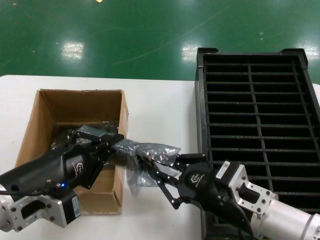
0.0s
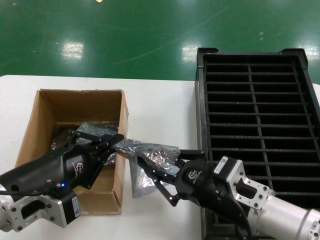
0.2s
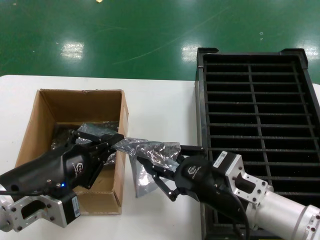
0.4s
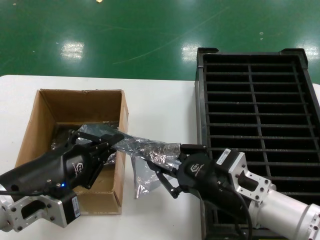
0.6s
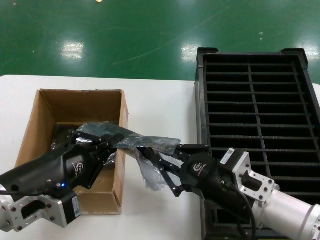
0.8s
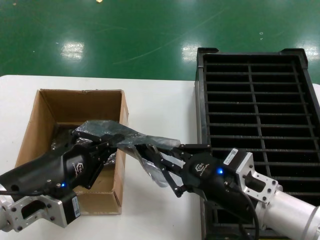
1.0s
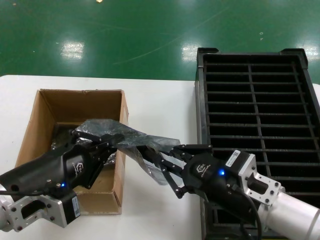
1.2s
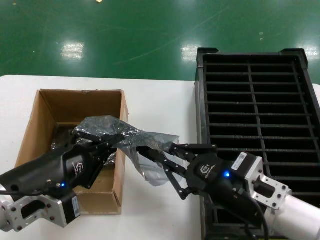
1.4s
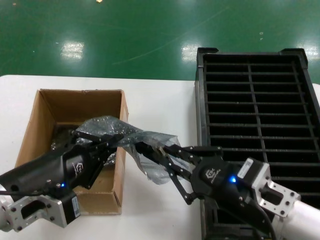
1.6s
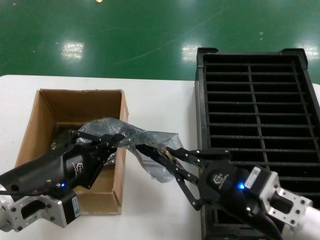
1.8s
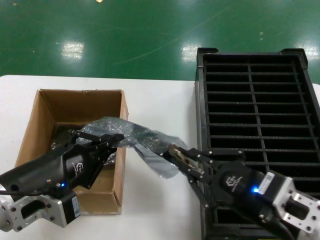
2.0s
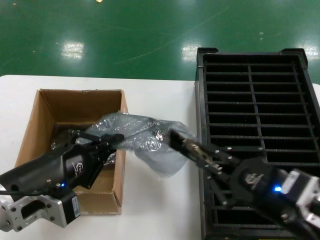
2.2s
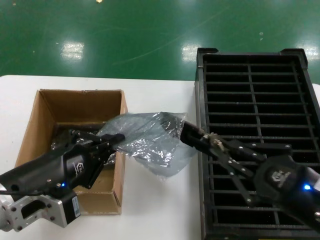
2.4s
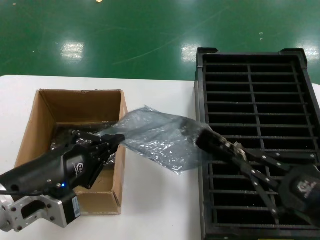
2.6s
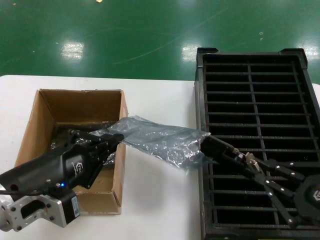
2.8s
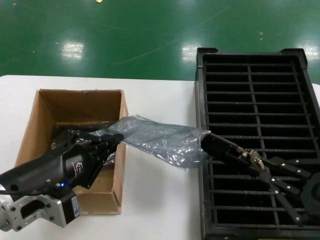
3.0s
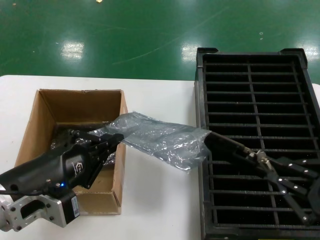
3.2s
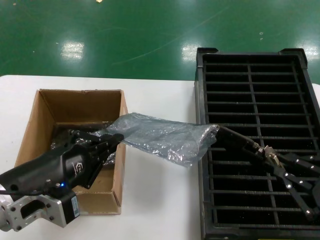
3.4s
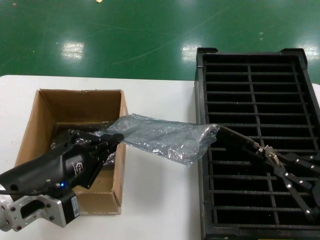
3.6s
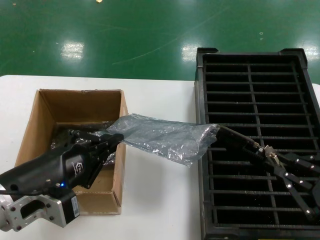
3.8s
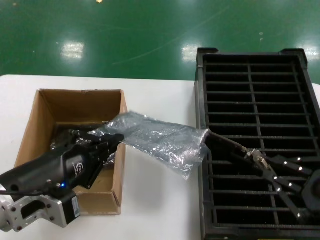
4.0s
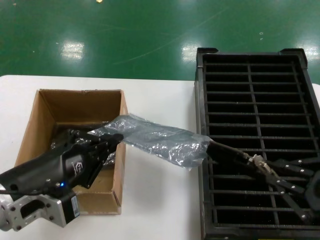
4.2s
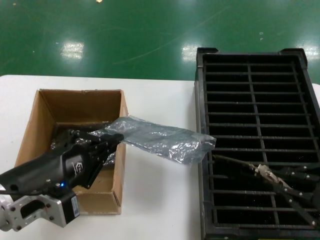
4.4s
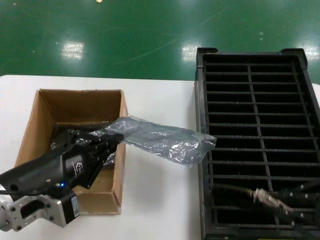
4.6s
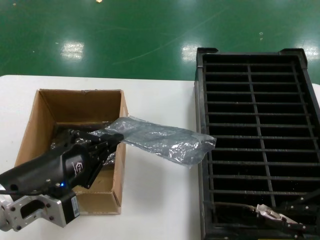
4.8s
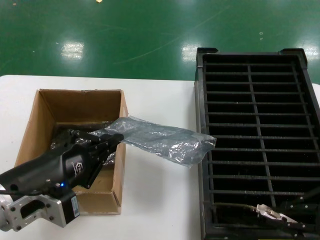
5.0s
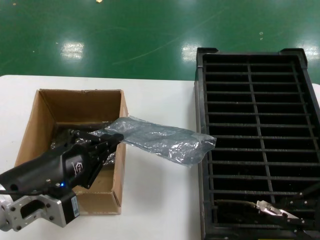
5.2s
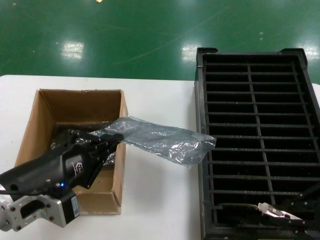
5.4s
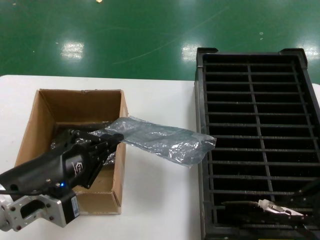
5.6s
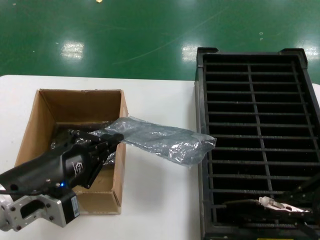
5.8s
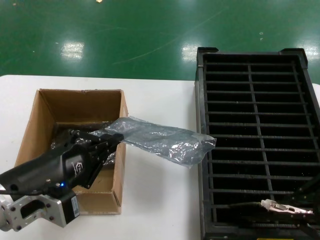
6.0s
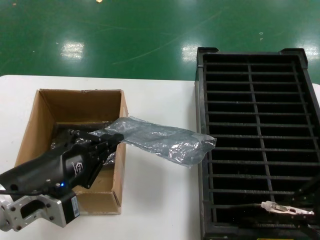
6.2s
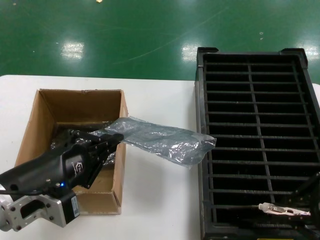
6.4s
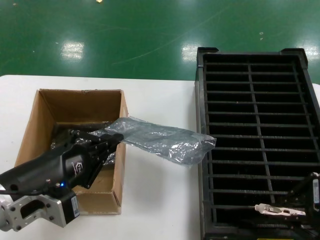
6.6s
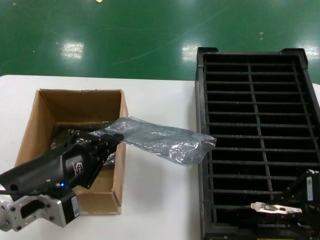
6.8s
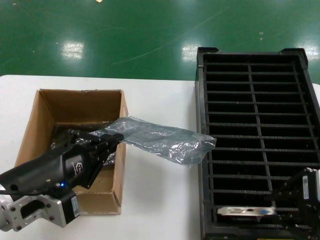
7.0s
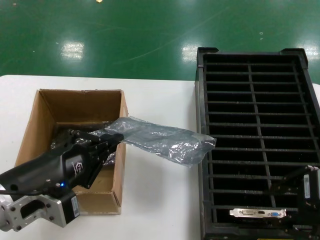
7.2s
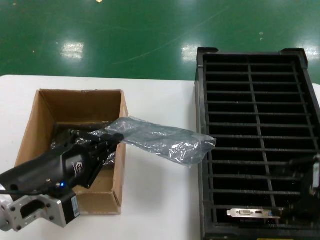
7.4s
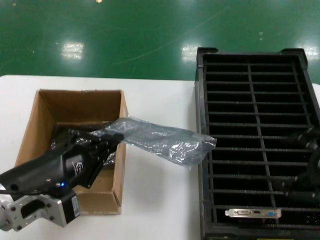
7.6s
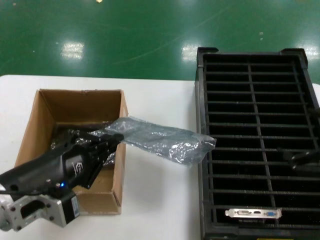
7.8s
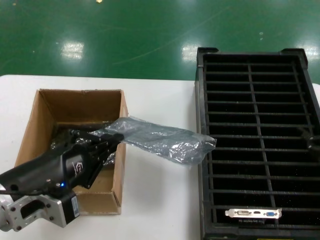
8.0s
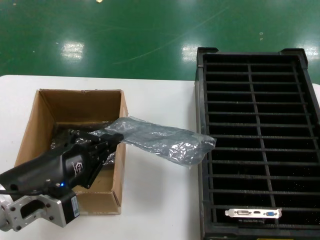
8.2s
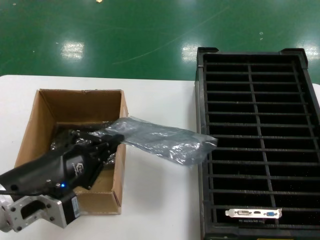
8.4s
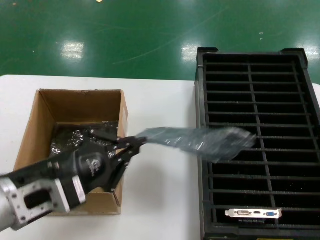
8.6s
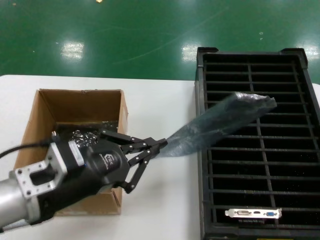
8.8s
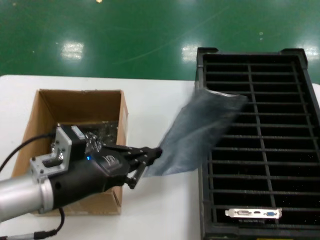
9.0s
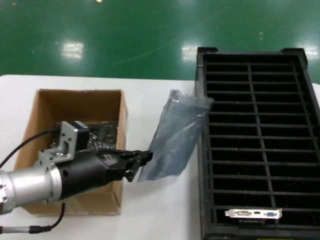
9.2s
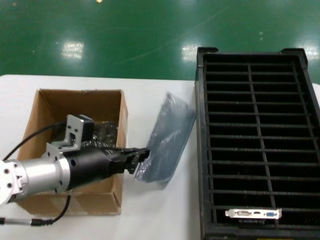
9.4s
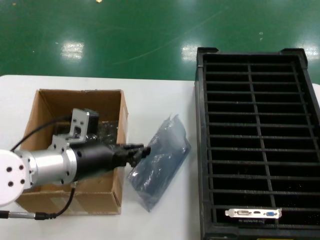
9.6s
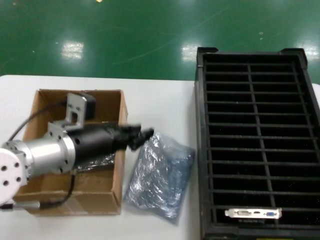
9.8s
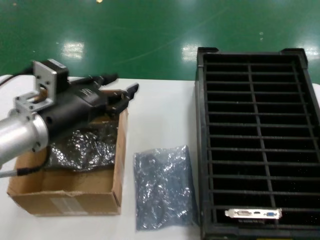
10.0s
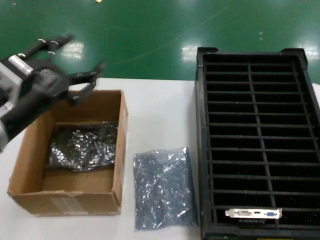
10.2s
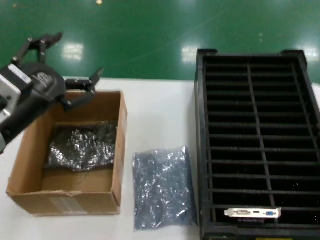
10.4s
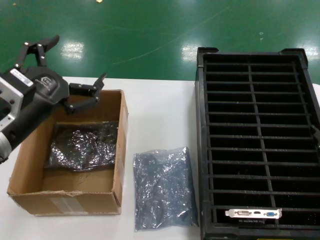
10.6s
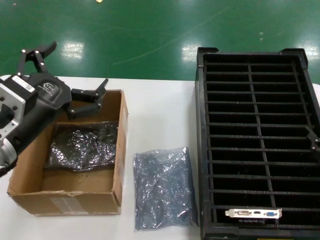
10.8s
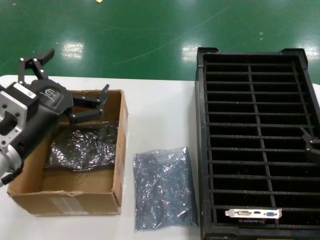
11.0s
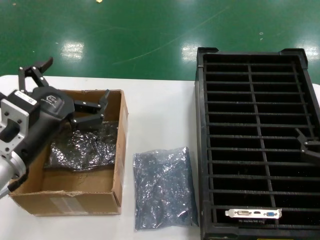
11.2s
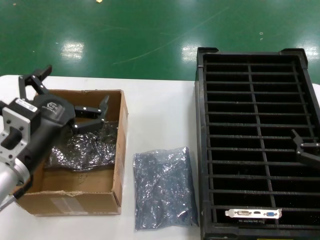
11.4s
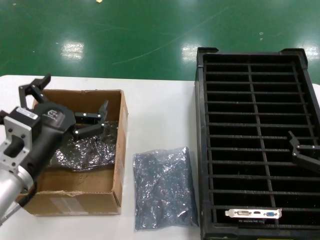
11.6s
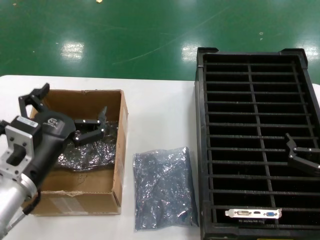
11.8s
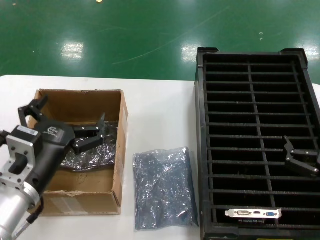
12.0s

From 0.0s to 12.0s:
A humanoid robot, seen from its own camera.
Task of the whole recording: take out graphics card from box remove packaging put into black container.
Step, from 0.0s to 4.4s: Take out the hard disk of the bag.
Step, from 4.6s to 7.4s: Place the hard disk in the hard disk enclosure.
Step, from 7.6s to 11.2s: Place the down the bag.
From 0.0s to 1.6s: There are only small adjustments of the hands.
From 1.6s to 3.0s: The right hand moves to the right, backward and upward, some 15 cm.
From 3.0s to 4.4s: The hands make only small movements.
From 4.4s to 6.0s: The right hand moves roughly 5 cm.
From 6.0s to 7.6s: The hands stay close to where they were, moving slightly.
From 7.6s to 9.0s: The right hand moves downward and to the right, roughly 10 cm, while the left hand travels forward by roughly 5 cm.
From 9.0s to 10.4s: The left hand is displaced upward by approximately 5 cm.
From 10.4s to 12.0s: The right hand is displaced downward and to the left by approximately 10 cm, while the left hand heads downward, covering approximately 10 cm.

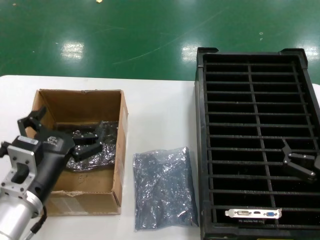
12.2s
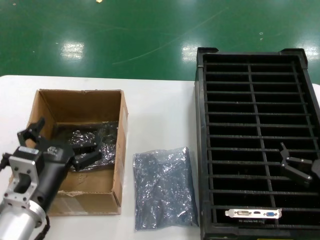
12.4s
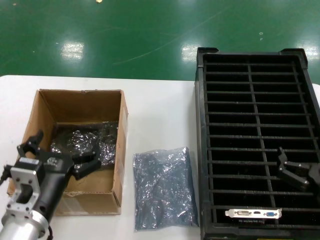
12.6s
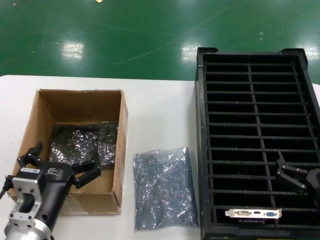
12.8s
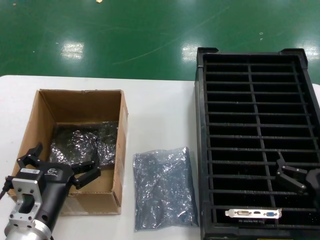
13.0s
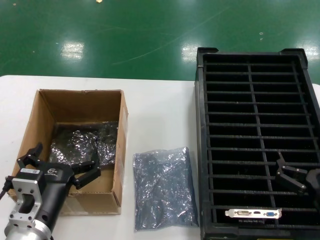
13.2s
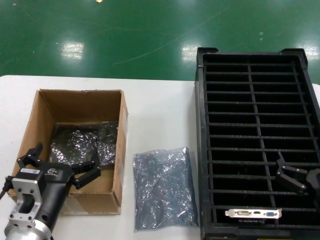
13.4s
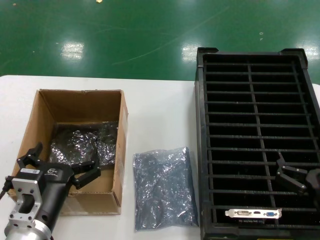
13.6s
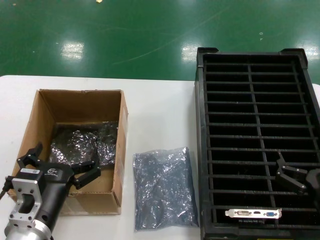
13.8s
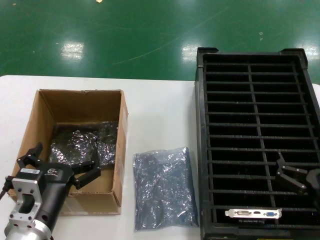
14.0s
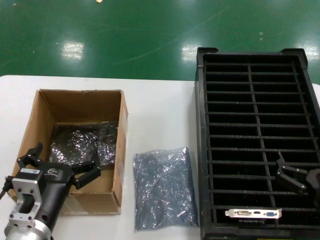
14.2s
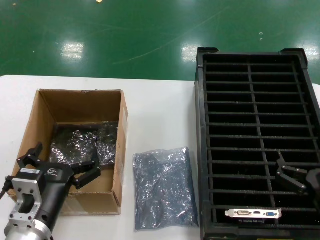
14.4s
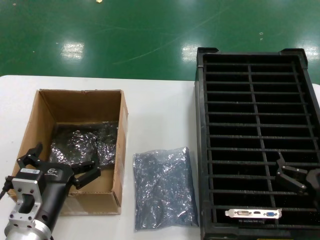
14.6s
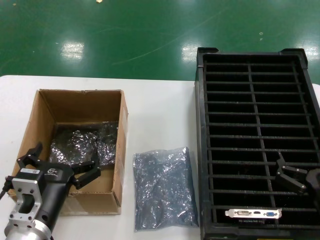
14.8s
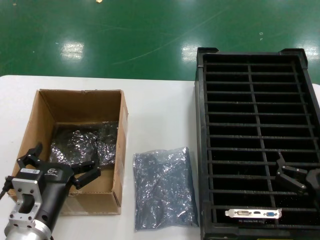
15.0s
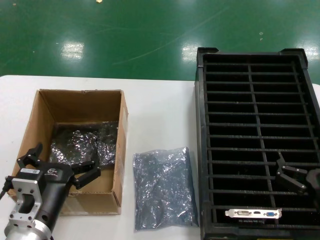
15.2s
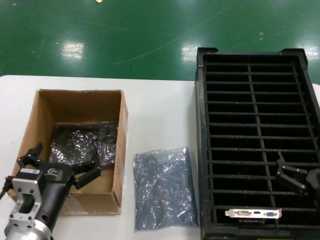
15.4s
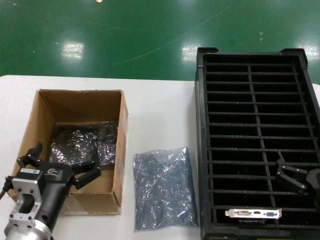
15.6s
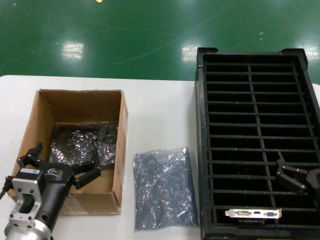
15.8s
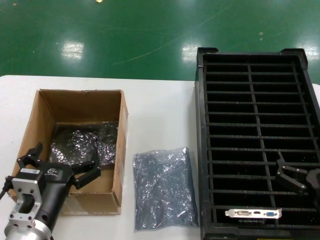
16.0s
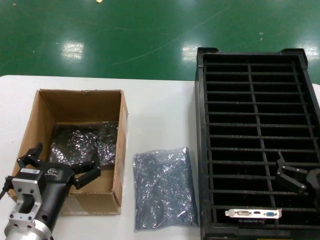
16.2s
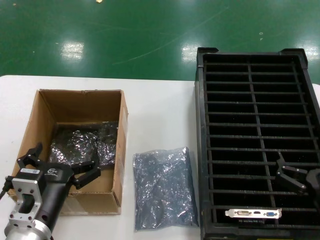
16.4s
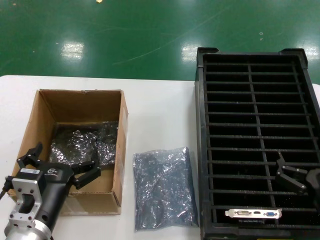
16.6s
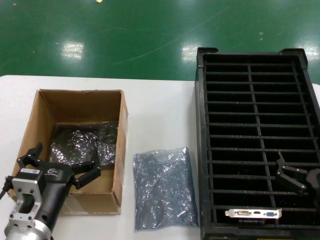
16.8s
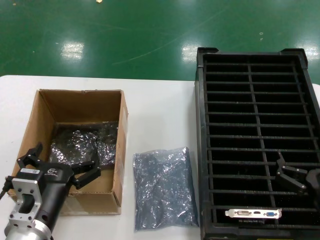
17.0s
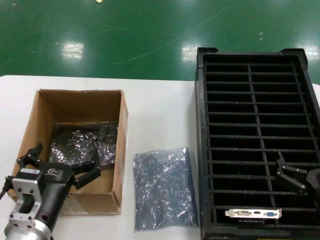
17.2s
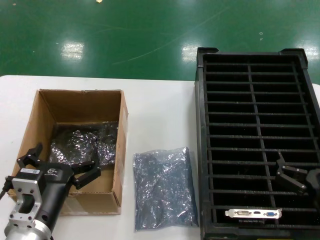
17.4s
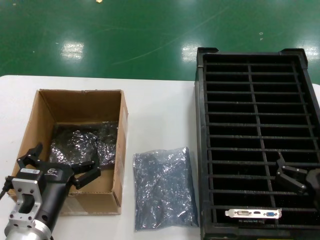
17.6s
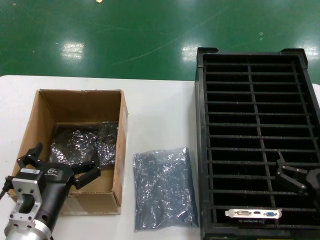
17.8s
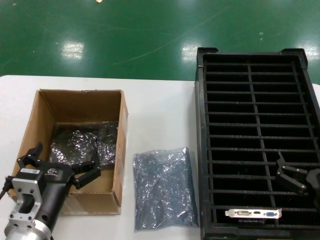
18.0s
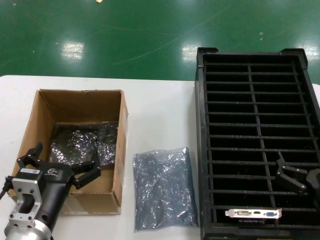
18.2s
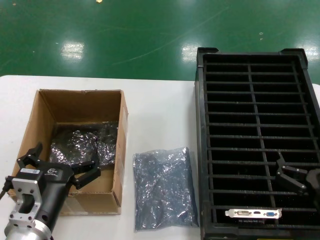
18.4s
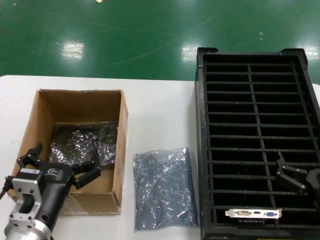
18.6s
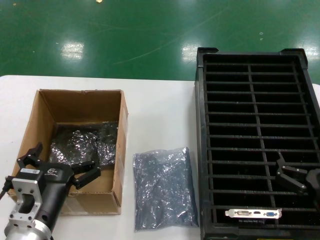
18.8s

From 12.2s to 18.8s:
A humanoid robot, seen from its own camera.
Task of the whole recording: take out graphics card from box remove packaging put into black container.
From 12.2s to 13.8s: The left hand travels downward by about 5 cm.
From 13.8s to 18.8s: Both hands stay about where they are.
